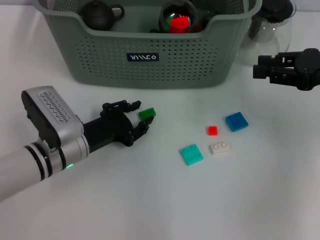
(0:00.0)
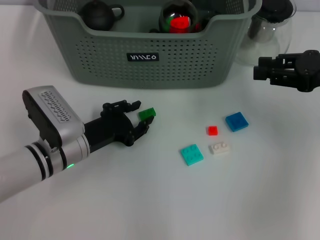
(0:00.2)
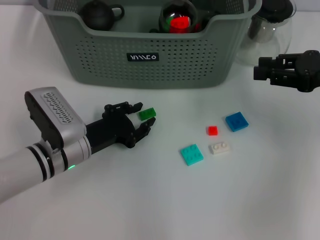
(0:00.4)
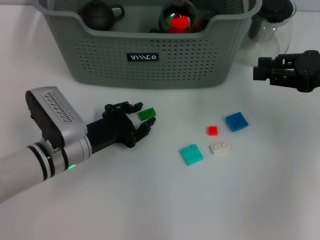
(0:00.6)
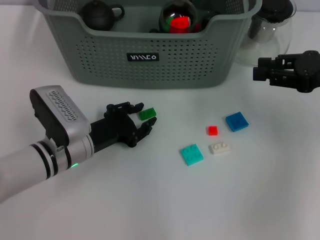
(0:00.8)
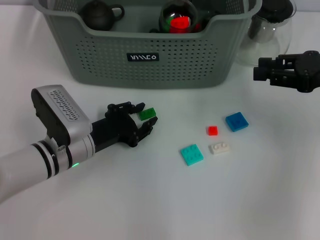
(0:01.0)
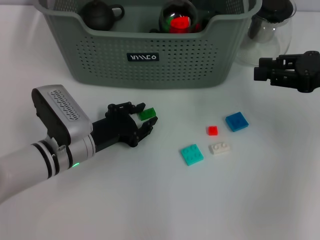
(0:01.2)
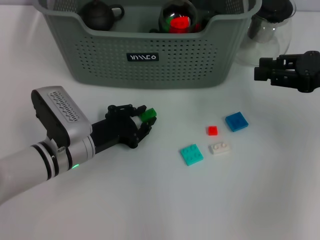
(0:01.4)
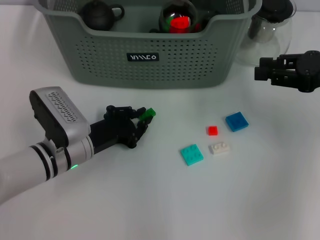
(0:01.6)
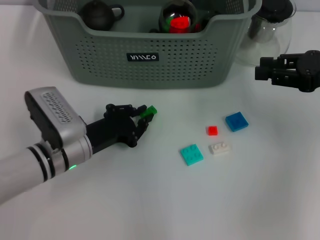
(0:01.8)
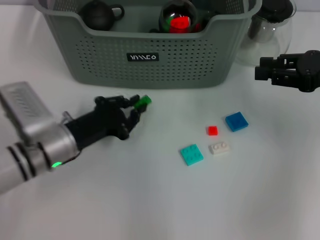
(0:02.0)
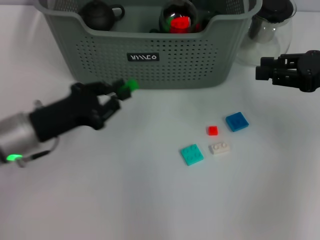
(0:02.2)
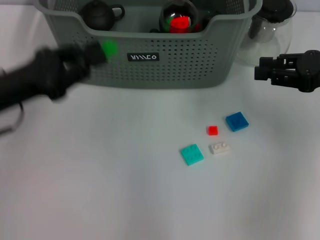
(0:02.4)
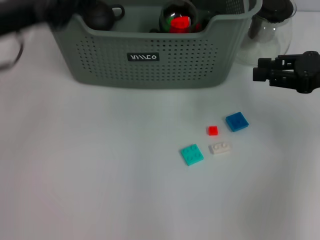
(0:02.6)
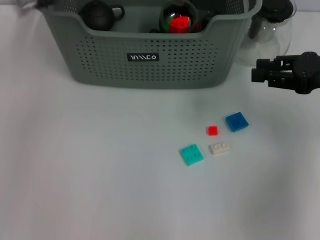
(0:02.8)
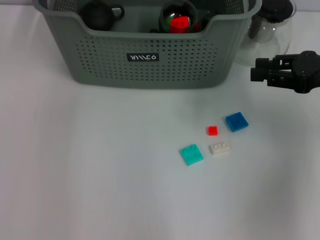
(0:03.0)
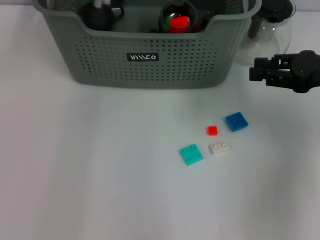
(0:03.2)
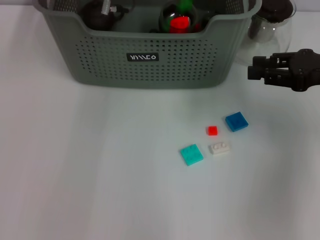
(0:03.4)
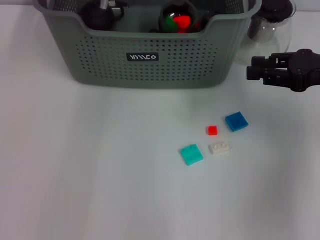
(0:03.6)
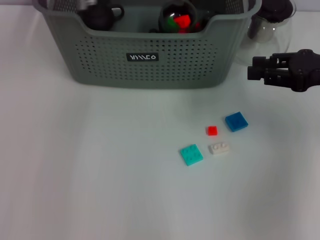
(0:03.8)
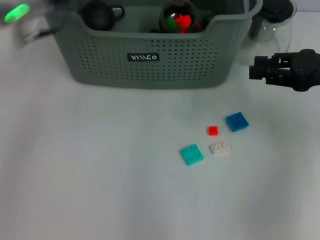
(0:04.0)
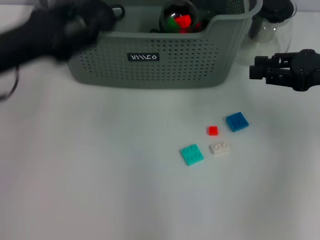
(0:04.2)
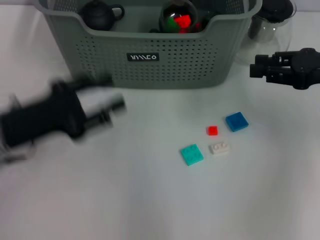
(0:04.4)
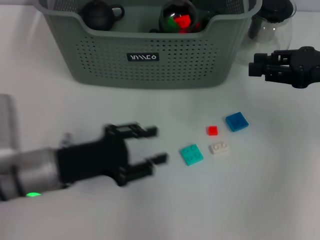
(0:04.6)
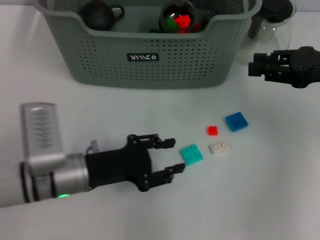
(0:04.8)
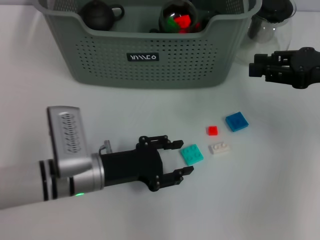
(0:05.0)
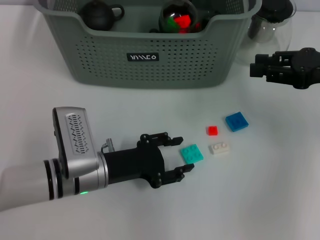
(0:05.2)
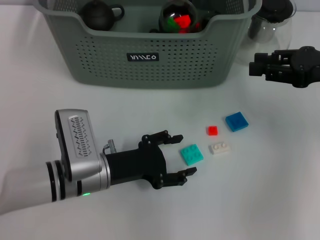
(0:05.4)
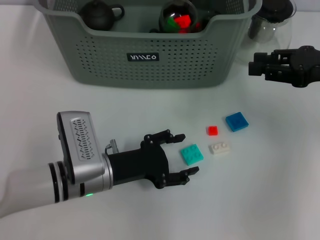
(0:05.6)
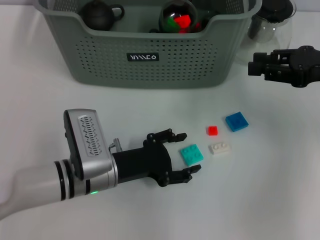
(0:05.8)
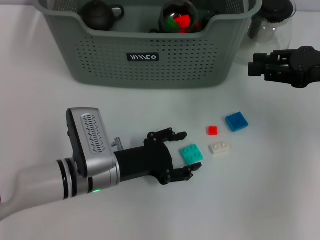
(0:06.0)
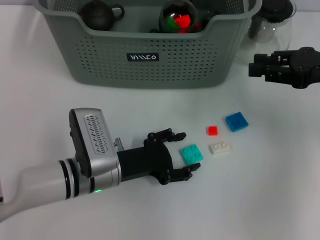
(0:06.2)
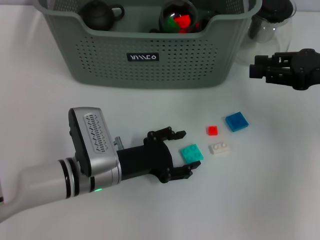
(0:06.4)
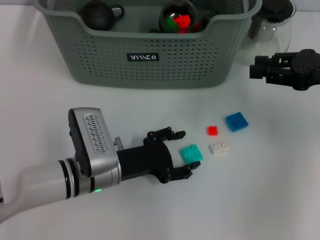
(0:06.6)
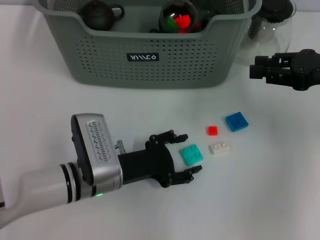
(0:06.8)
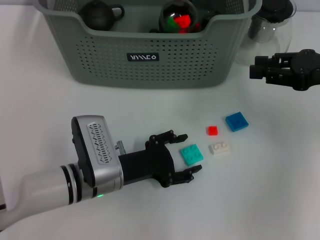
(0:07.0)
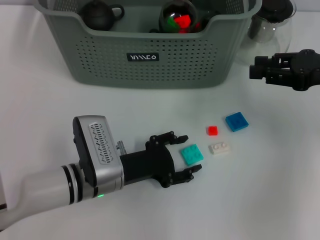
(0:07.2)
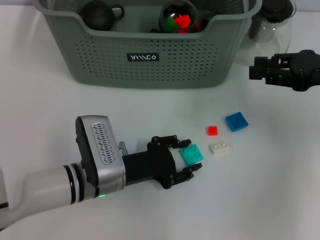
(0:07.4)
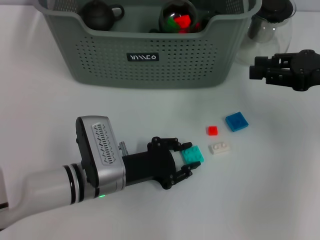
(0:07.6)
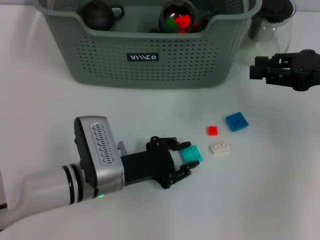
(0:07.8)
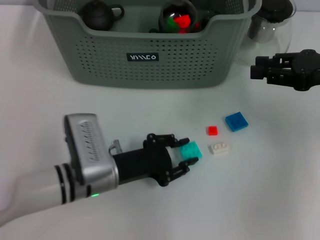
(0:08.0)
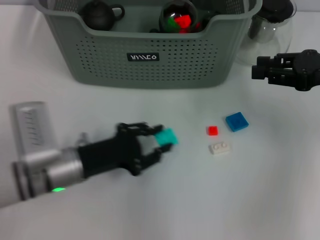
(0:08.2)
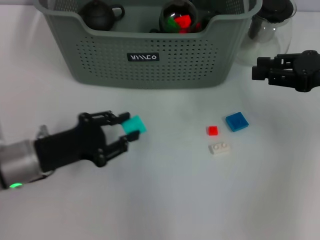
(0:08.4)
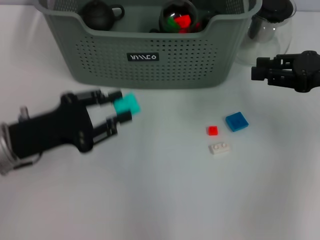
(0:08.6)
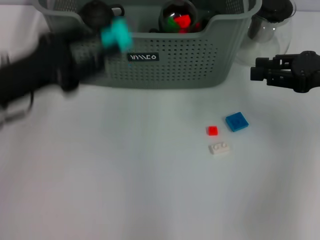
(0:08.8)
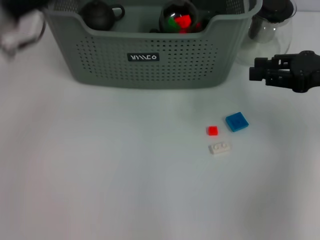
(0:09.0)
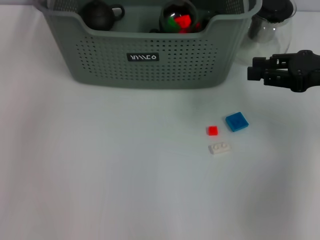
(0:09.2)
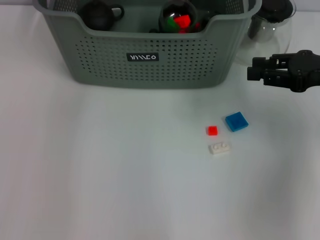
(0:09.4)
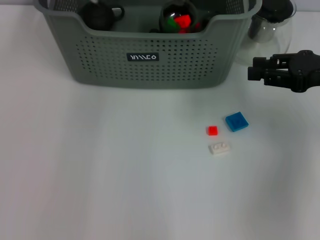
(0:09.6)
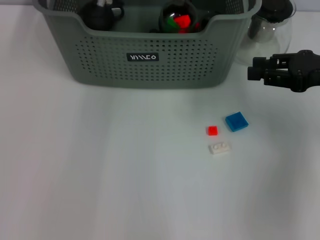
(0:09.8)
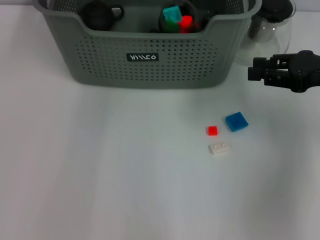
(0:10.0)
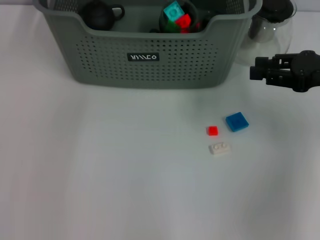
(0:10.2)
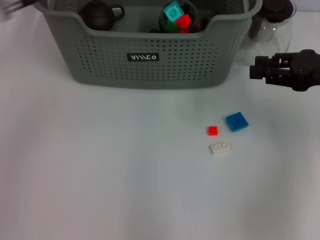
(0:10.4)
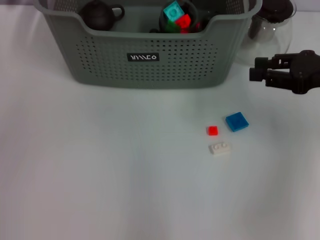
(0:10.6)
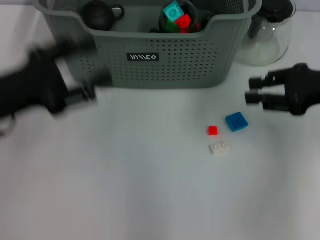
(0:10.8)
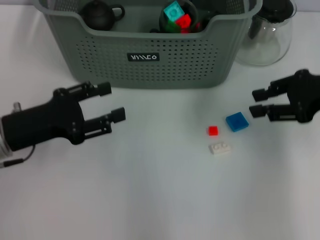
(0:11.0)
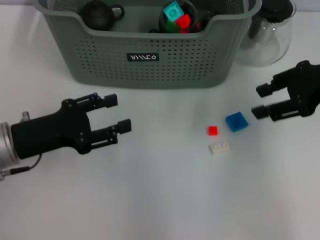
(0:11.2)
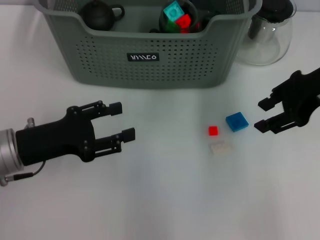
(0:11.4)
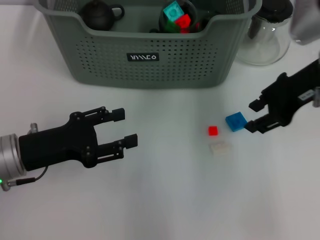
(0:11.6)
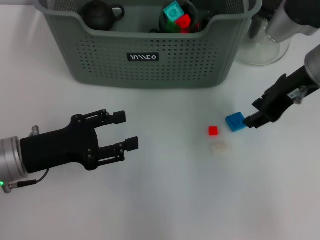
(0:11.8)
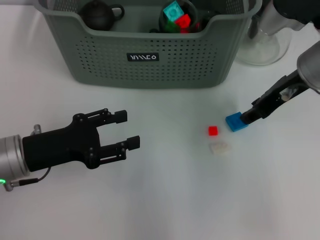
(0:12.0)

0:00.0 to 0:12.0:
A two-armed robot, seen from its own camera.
Task of the whole recording: pick up the teacup on the table and place it into the storage bin, pick up the block on the table and place it into the storage bin.
Step, 0:01.8 to 0:03.4: Place the green block in the storage box with left gripper.
Step, 0:03.6 to 0:07.8: Grasp the light blue block with left gripper.
Step, 0:08.0 to 0:09.8: Place the light blue block in the storage box with left gripper.
0:00.0 to 0:01.6: Both grippers stay put.
0:01.6 to 0:03.0: The left gripper heads upward and forward, covering some 30 cm.
0:03.0 to 0:04.4: The left gripper moves backward, downward and to the left, roughly 25 cm, and opens up.
0:04.4 to 0:06.0: The left gripper shifts some 15 cm to the right and downward.
0:06.0 to 0:07.6: Neither gripper changes place.
0:07.6 to 0:09.0: The left gripper moves upward, to the left and forward, roughly 25 cm.
0:09.0 to 0:10.4: The left gripper moves approximately 15 cm to the right and comes back.
0:10.4 to 0:12.0: The right gripper goes approximately 10 cm to the left; the left gripper goes some 20 cm downward and backward.

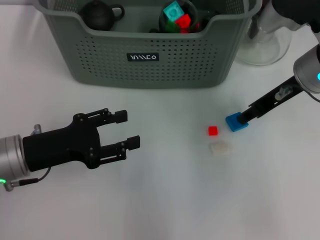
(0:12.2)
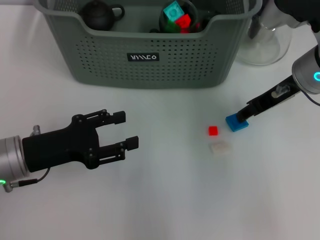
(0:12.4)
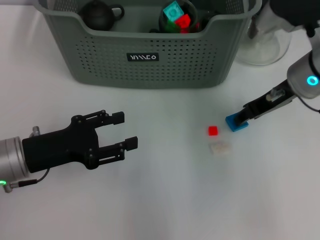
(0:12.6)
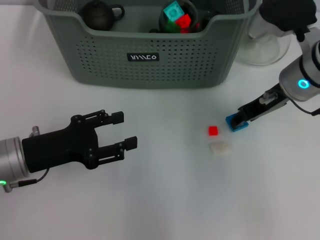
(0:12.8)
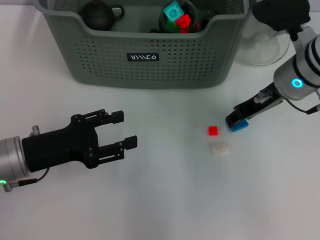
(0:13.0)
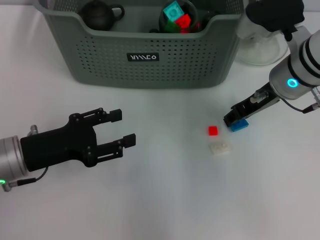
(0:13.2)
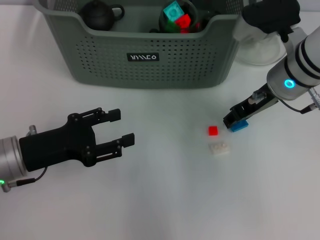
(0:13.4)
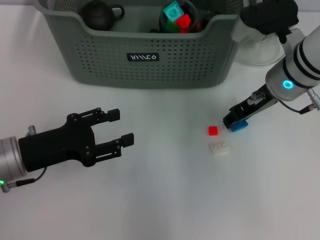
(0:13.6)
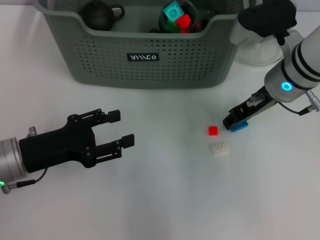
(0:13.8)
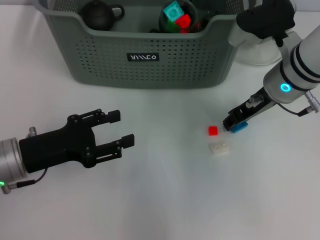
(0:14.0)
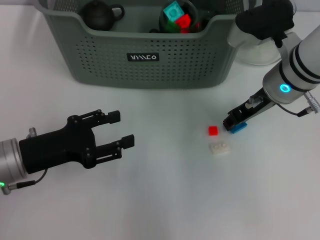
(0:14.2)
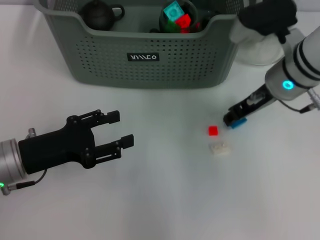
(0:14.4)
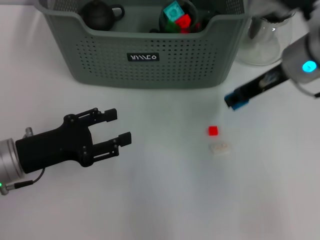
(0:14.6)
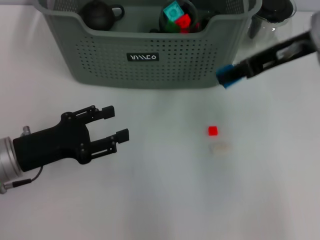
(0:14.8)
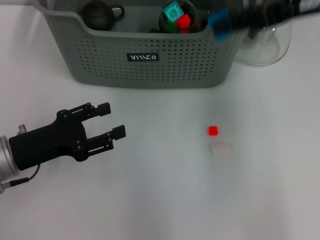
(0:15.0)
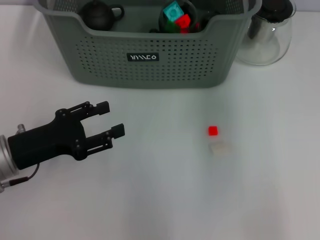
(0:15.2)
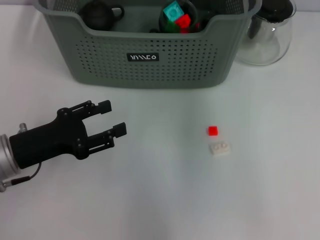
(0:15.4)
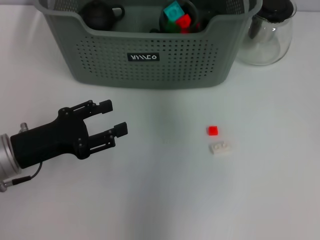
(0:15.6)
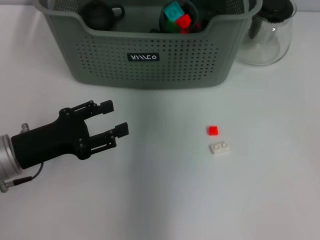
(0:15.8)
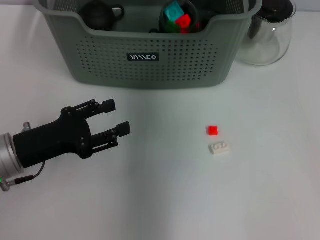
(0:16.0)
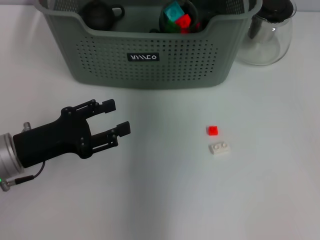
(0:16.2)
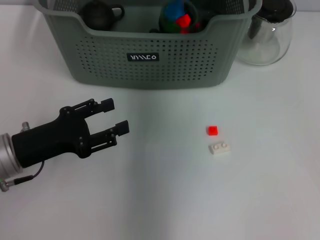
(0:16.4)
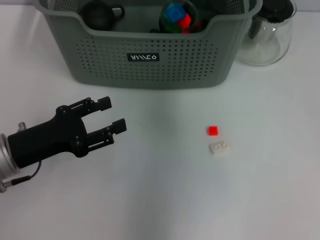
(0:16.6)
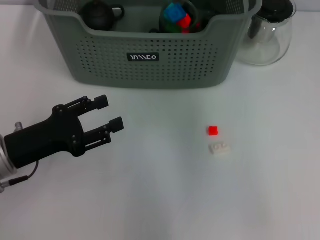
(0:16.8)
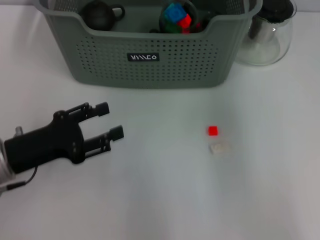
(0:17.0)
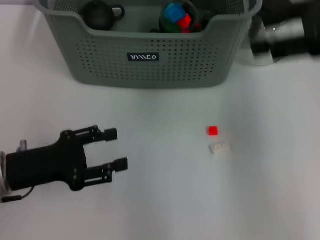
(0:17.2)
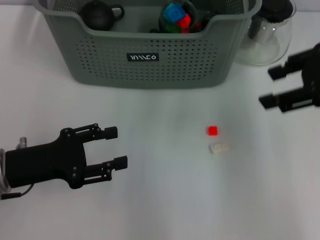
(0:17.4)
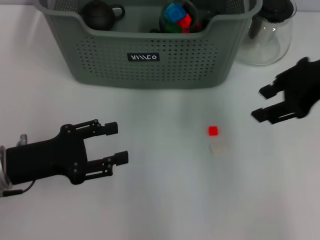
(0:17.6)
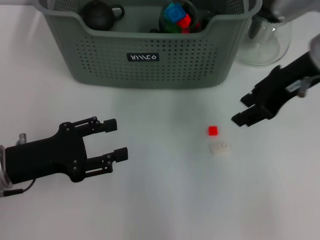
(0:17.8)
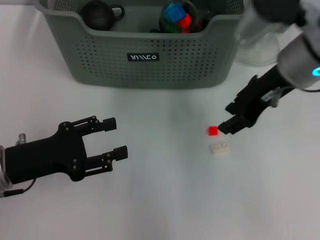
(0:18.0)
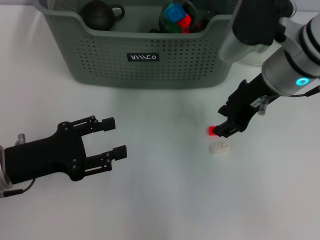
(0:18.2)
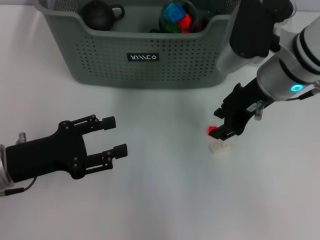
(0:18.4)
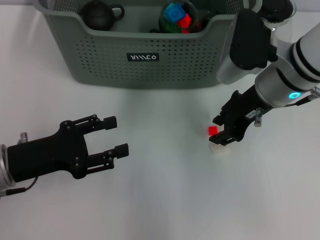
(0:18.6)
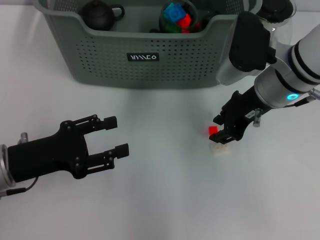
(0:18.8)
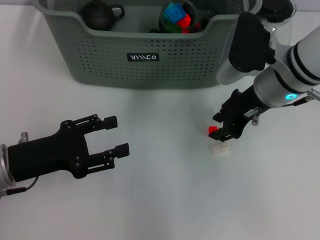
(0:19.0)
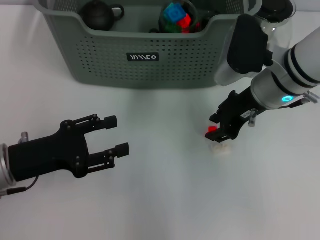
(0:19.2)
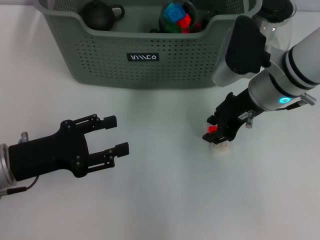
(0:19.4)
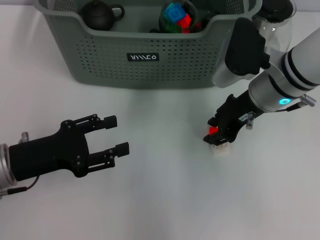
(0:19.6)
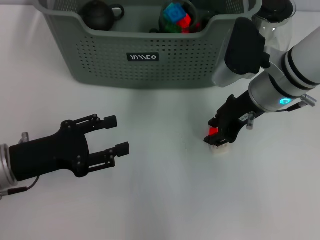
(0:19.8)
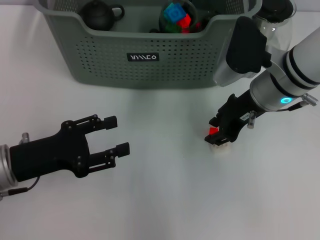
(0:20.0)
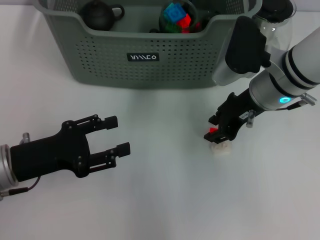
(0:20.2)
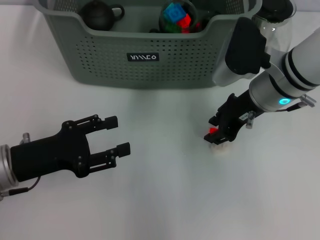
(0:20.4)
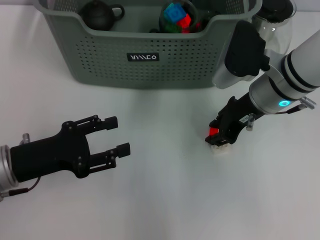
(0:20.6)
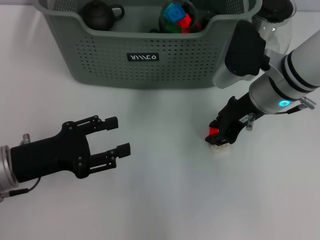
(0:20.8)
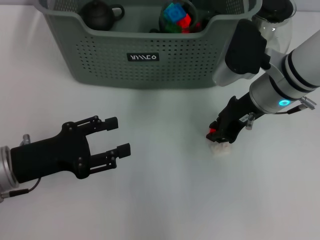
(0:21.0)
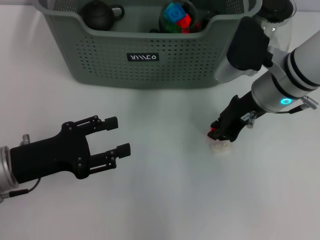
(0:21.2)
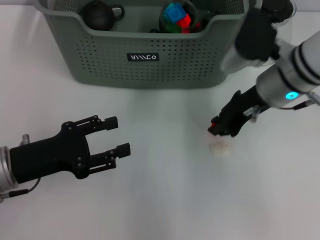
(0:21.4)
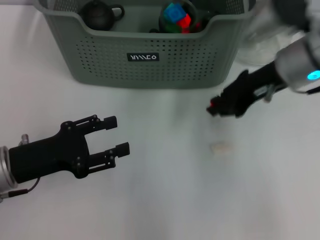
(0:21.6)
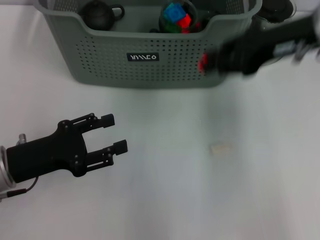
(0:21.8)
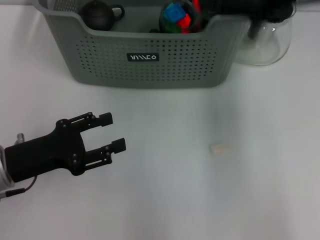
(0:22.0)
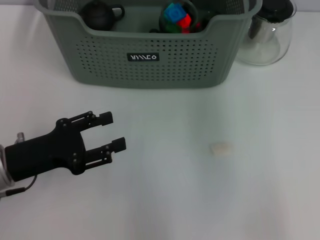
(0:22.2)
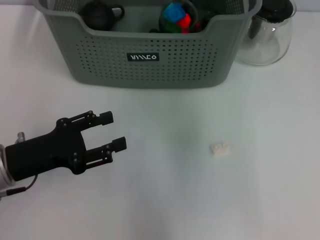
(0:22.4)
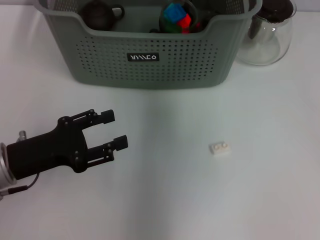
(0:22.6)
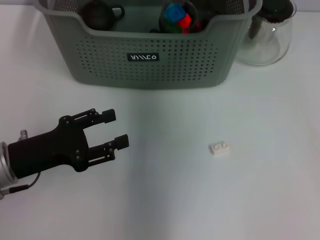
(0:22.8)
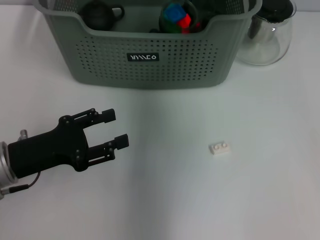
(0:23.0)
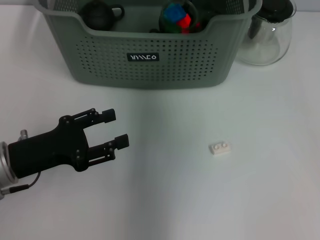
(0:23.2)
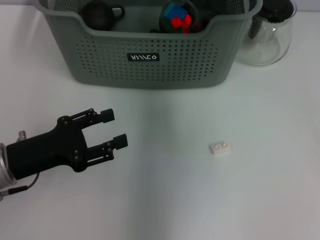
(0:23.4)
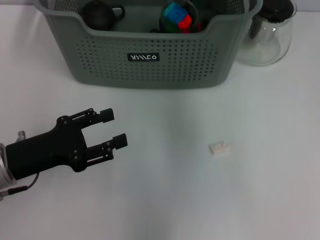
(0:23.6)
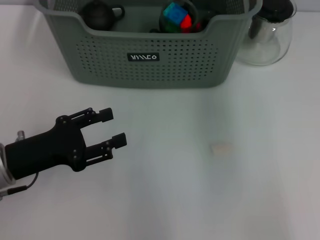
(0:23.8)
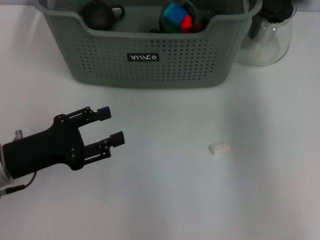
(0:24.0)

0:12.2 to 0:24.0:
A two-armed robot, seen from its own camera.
Task of the whole recording: pick up the teacup on the table and place it into the storage bin, pick up the block on the table and place it into the storage bin.
Step, 0:14.2 to 0:16.4: Place the dark blue block in the storage box with right gripper.
Step, 0:16.6 to 0:21.0: Grasp the orange block with right gripper.
Step, 0:21.2 to 0:23.2: Place the orange block in the storage box with right gripper.
0:12.2 to 0:13.6: There are only small adjustments of the grippers.
0:13.6 to 0:15.2: The right gripper moves upward, some 15 cm.
0:15.2 to 0:16.6: The right gripper moves to the left and forward, approximately 15 cm.
0:16.6 to 0:18.2: The right gripper is displaced backward and downward by about 15 cm.
0:18.2 to 0:19.6: The right gripper shifts approximately 5 cm downward.
0:19.6 to 0:21.0: Both grippers stay about where they are.
0:21.0 to 0:22.6: The right gripper goes some 20 cm upward, forward and to the left.
0:22.6 to 0:24.0: The right gripper shifts approximately 20 cm backward and to the right, and opens its fingers.
